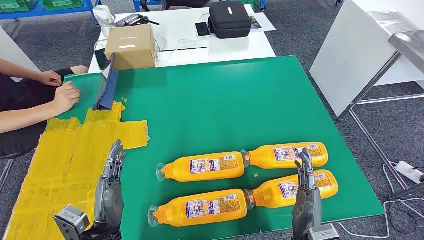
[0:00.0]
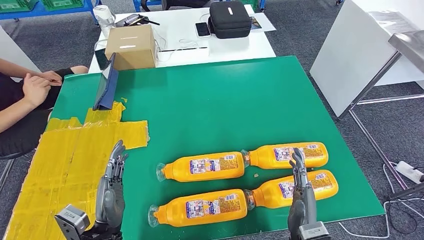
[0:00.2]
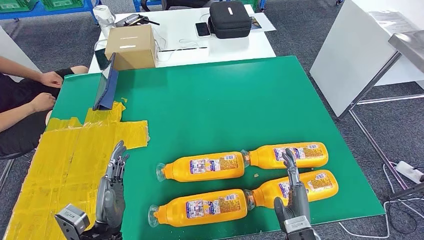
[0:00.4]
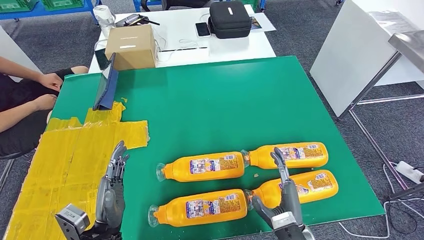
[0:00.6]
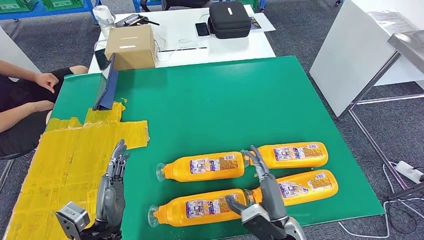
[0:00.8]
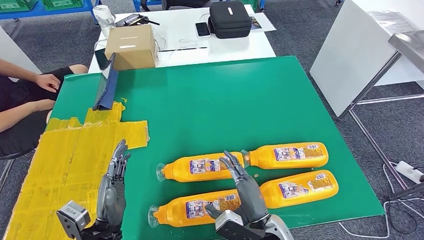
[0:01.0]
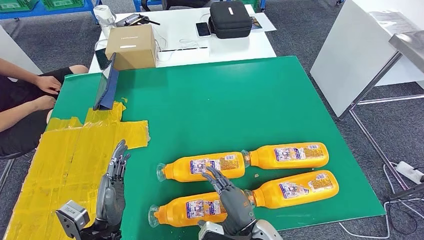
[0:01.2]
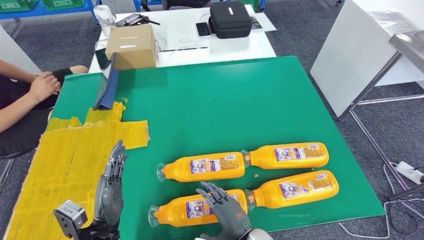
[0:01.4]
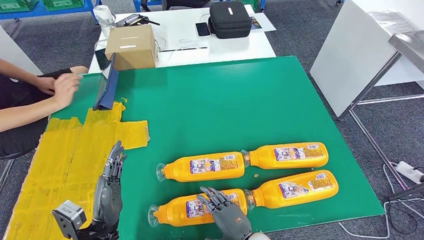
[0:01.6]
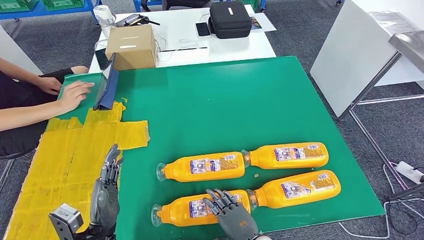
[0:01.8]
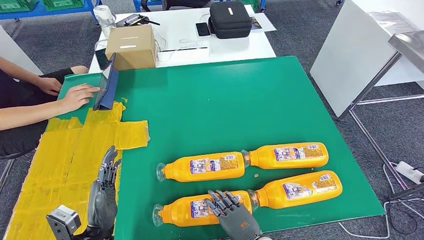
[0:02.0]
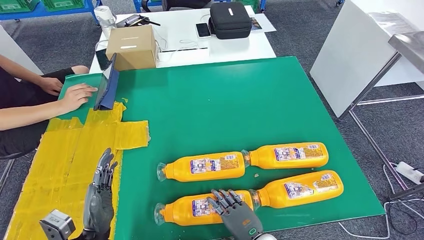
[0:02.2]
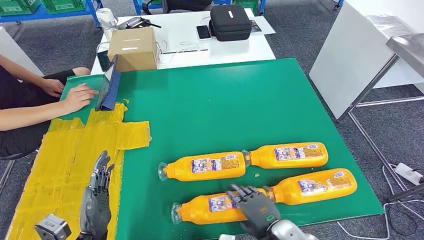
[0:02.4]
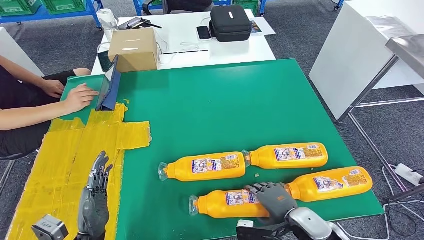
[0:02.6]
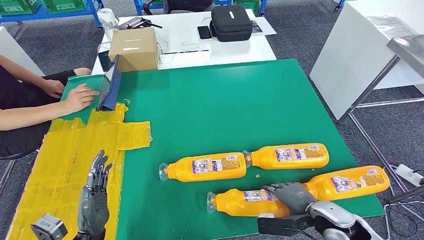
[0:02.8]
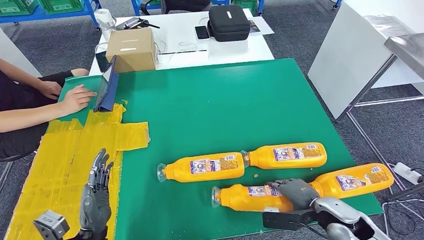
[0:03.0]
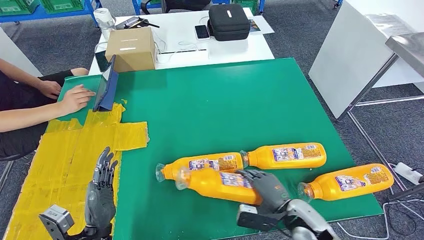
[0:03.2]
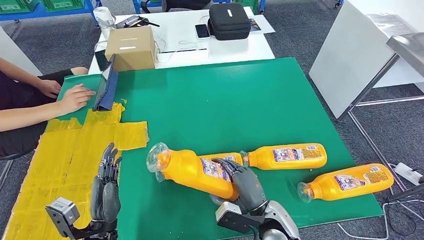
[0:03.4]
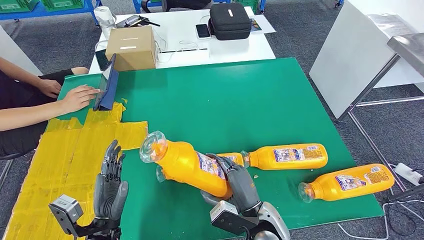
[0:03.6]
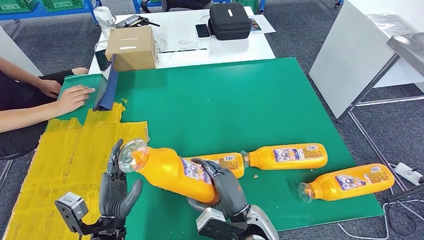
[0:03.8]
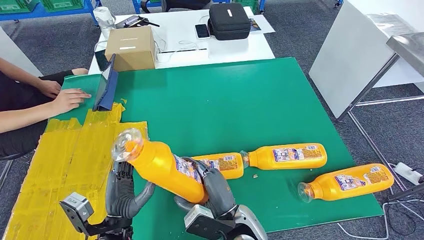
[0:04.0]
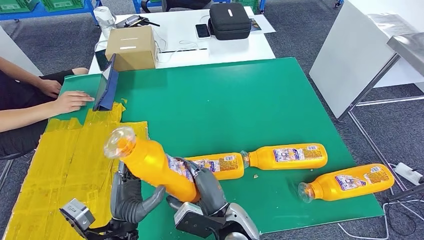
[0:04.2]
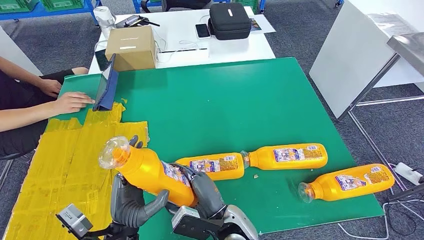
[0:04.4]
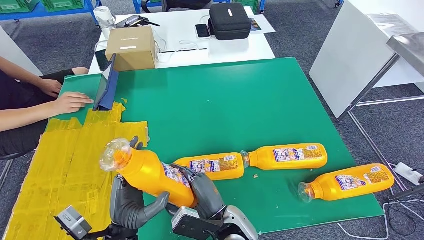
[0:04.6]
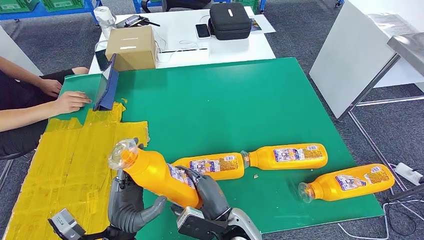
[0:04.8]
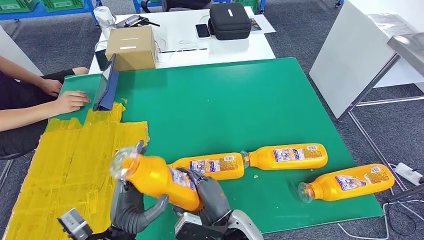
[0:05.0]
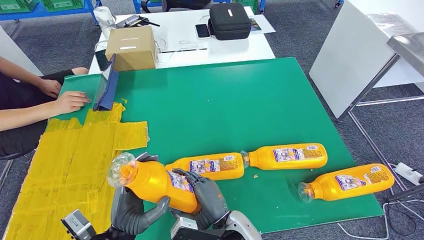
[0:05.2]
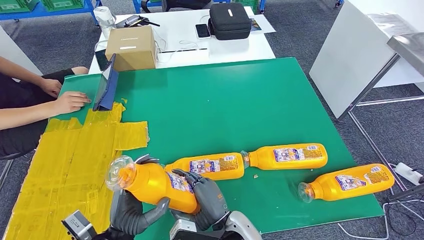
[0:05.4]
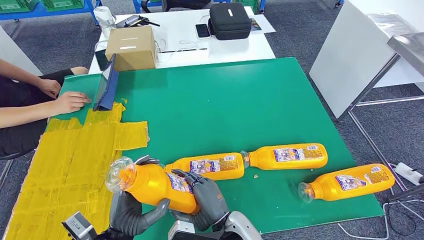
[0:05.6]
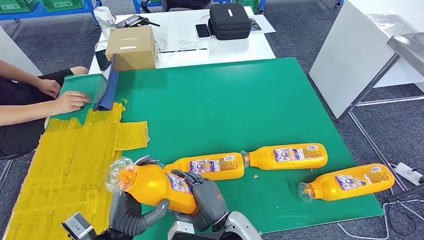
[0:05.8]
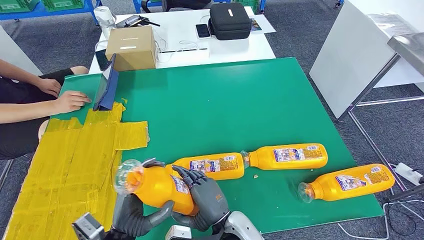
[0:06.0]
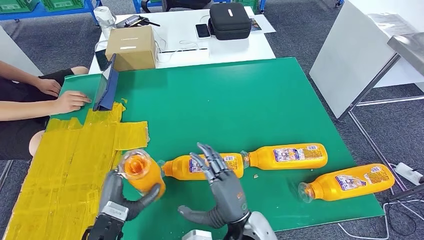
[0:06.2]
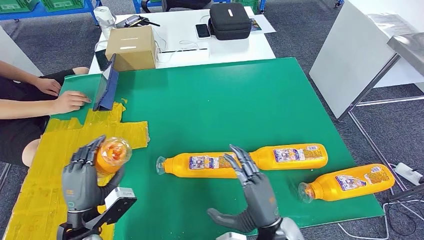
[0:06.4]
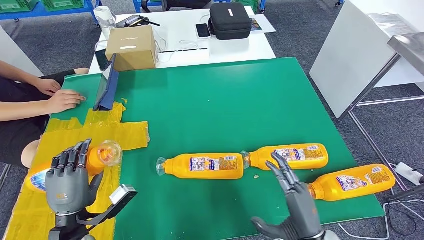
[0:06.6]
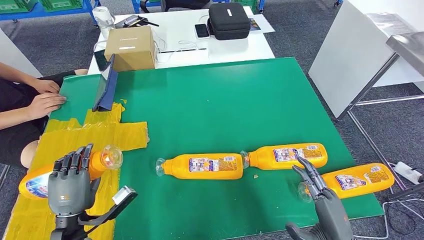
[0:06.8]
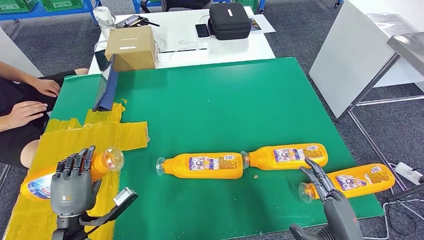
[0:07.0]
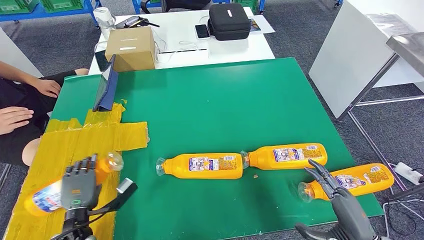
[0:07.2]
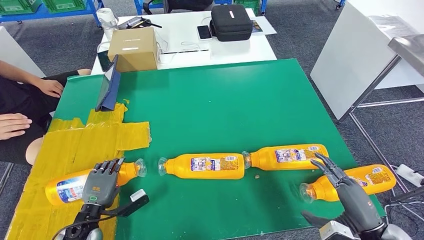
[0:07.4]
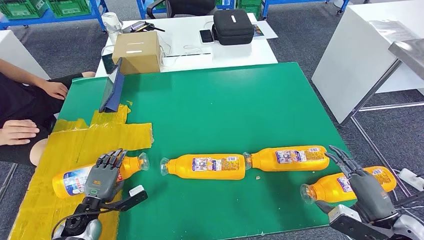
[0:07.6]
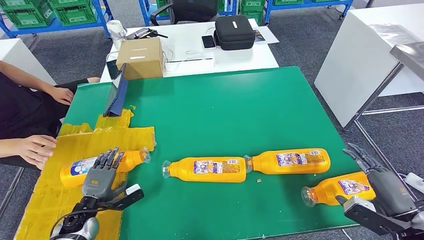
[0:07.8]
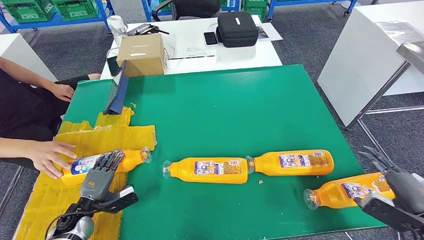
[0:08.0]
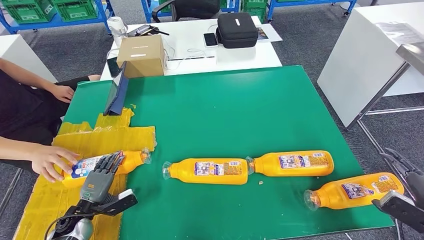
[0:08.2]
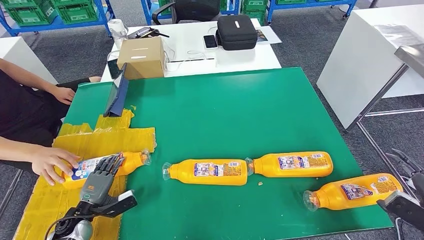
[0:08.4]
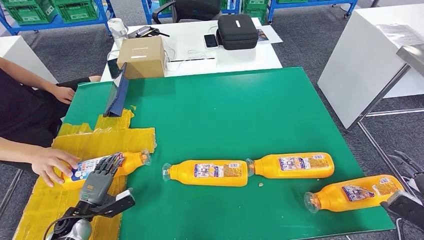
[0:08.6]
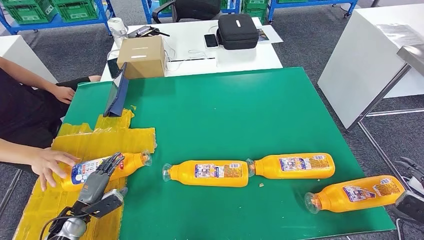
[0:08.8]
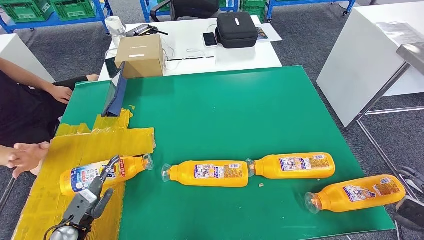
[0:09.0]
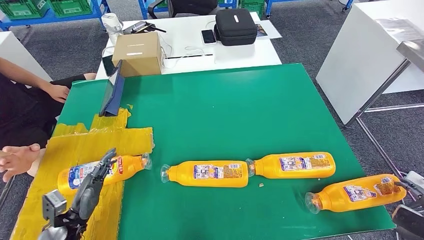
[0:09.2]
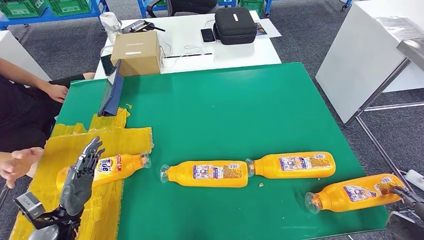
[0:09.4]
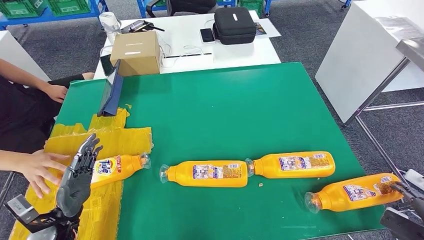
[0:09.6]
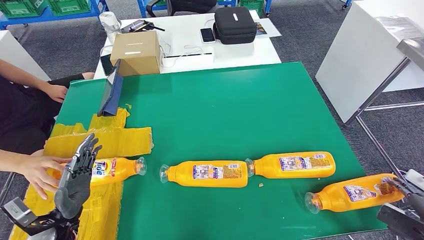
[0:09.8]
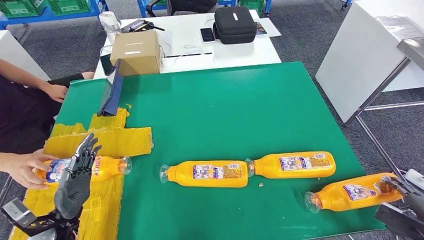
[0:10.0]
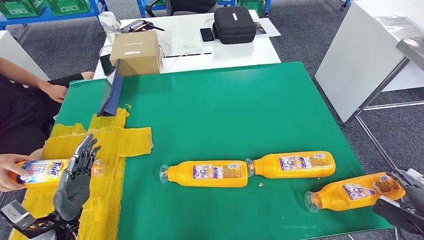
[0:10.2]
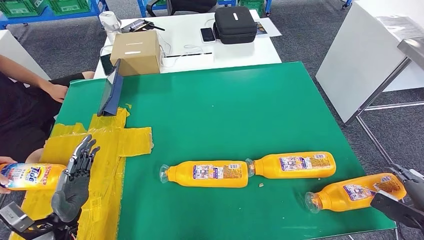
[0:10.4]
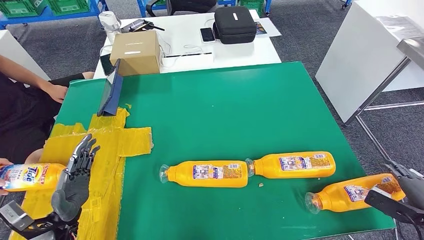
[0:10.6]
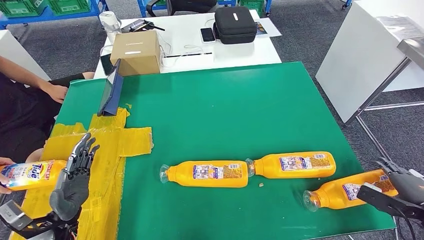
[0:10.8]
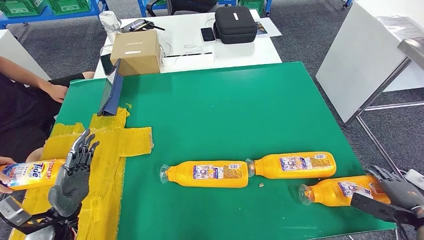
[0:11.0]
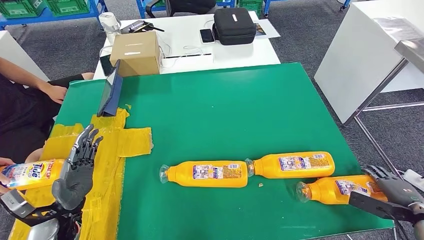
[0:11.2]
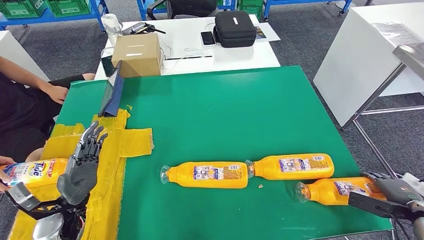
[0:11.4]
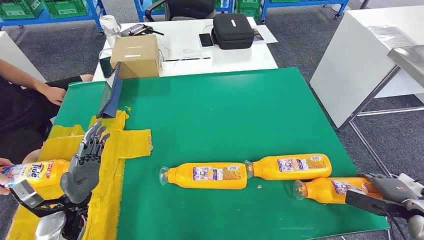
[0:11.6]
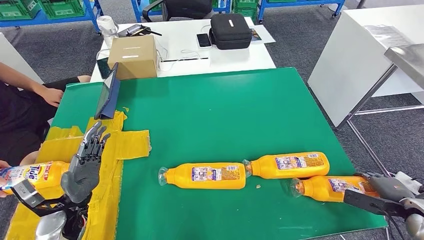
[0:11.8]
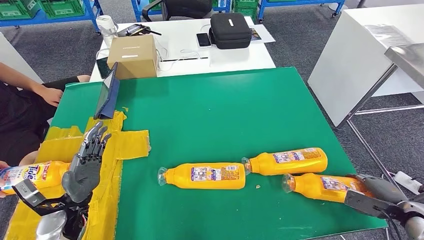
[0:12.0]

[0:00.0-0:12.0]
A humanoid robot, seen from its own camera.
Step, 0:00.0 to 0:05.0: Take the fast-moving consumer goods bottle from the table.
Step, 0:05.6 to 0:09.2: Flip the fast-moving consumer goods bottle to the front side.
0:04.4 to 0:06.0: The hands move only a little.

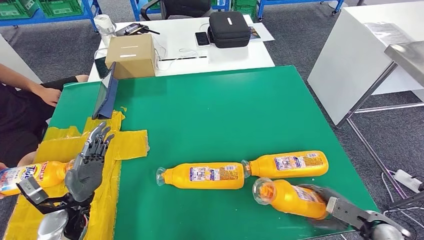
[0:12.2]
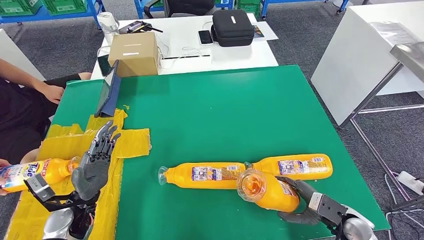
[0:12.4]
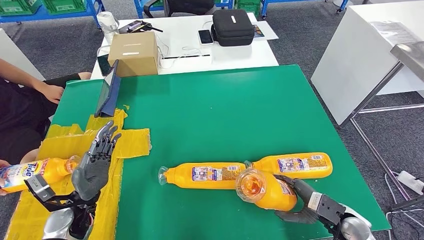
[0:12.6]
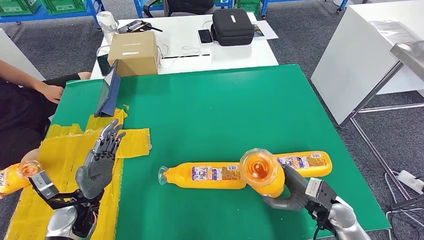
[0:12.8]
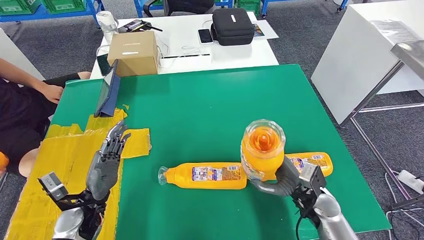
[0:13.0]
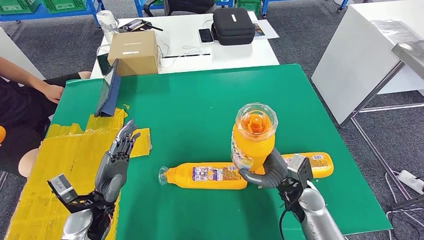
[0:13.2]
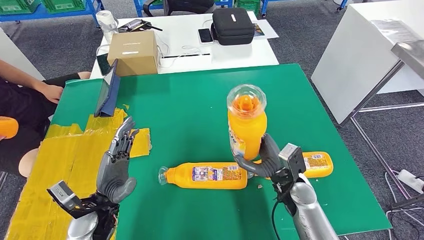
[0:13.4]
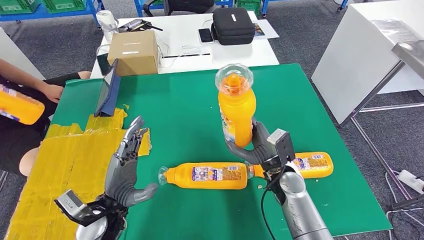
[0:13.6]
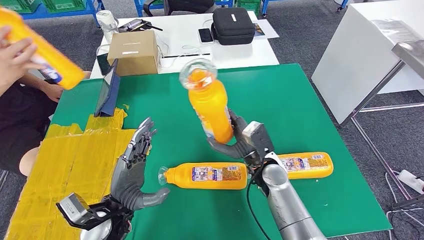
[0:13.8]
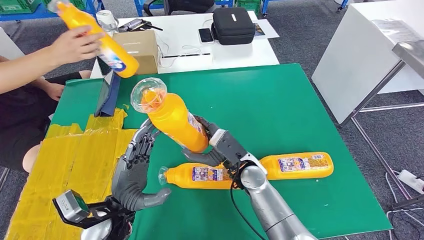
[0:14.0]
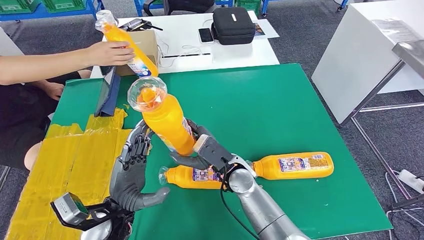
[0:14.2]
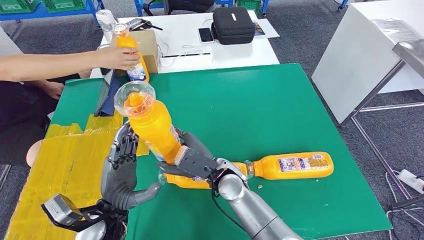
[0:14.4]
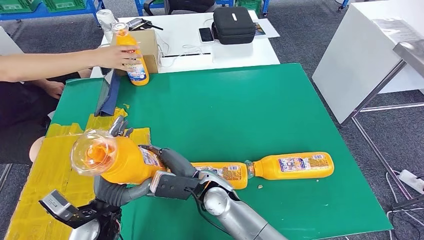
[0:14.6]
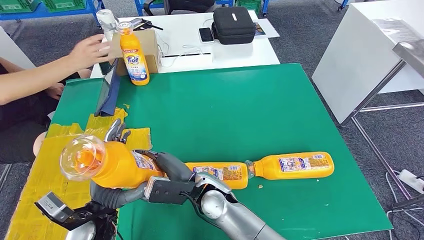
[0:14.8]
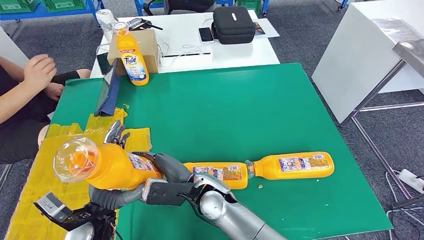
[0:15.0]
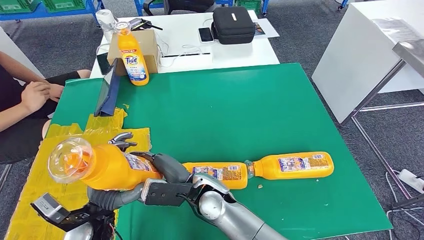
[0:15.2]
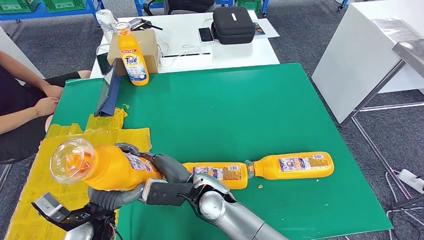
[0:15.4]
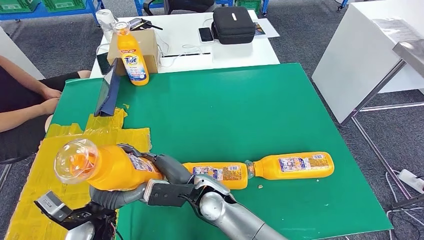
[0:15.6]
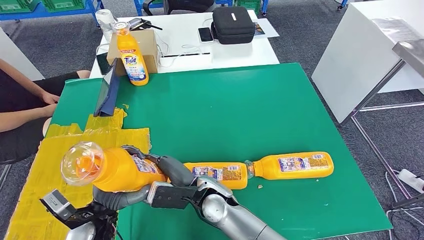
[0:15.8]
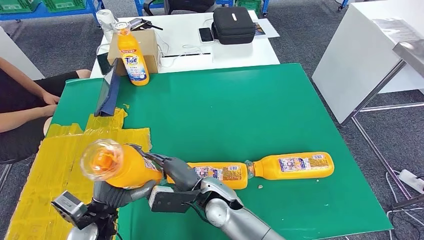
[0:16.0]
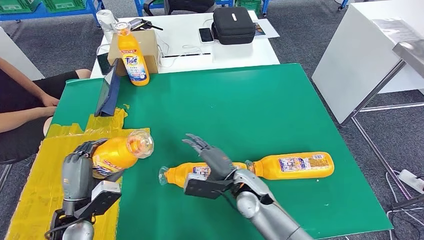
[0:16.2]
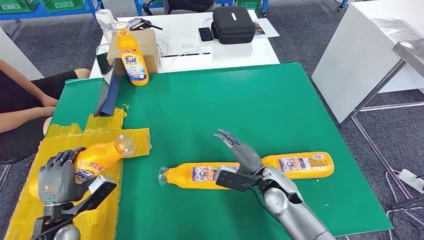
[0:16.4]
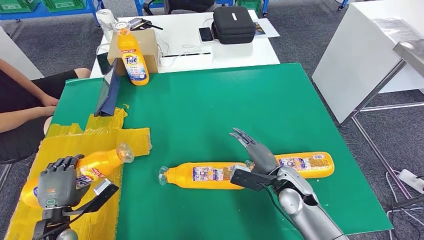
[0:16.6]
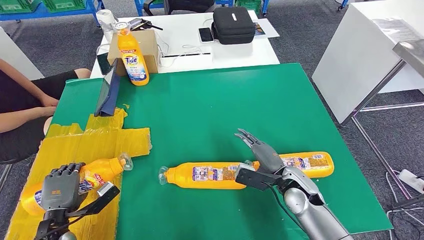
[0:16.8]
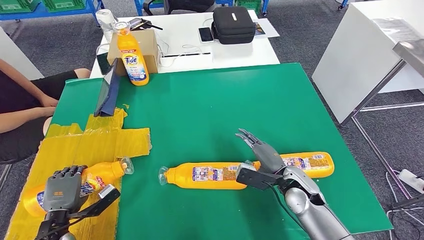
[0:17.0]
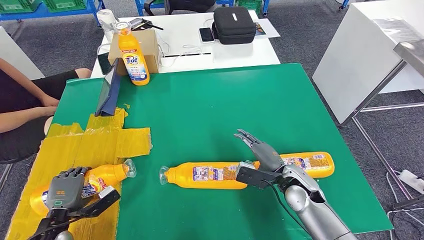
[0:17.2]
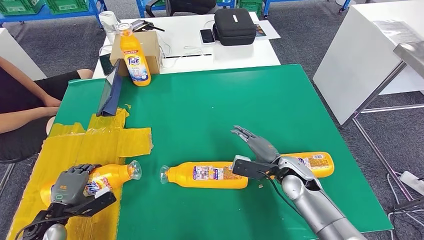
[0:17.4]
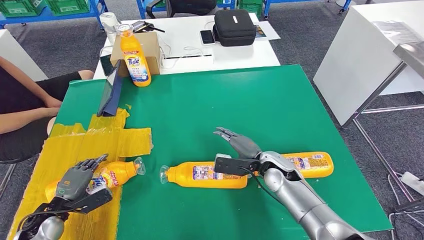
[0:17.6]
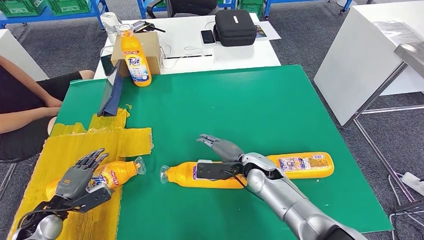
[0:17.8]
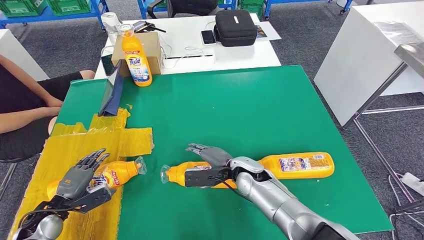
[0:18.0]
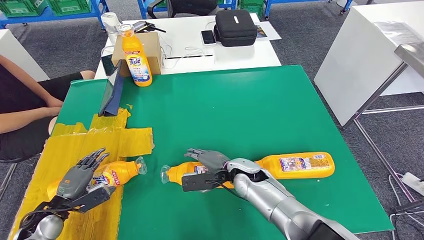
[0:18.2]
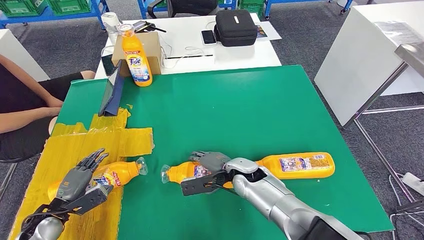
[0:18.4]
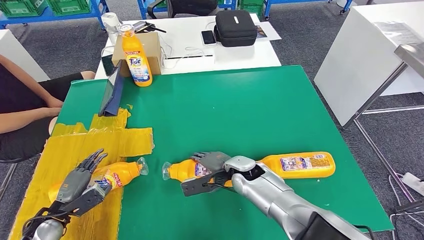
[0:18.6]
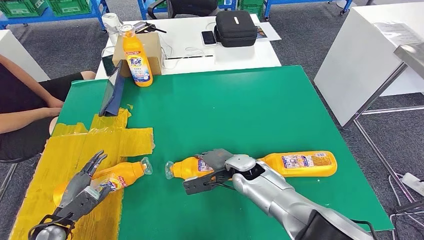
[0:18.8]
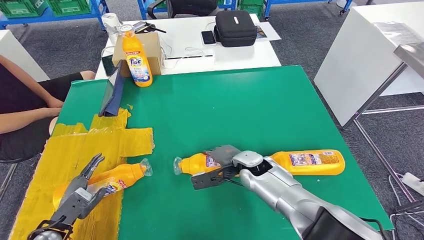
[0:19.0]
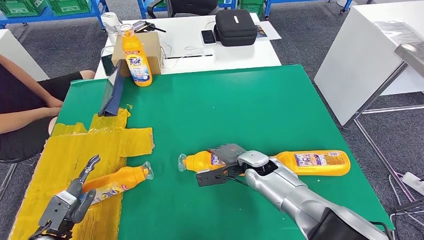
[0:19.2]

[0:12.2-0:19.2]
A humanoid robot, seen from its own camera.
Step, 0:12.2 to 0:14.8: Pick up the fast-moving consumer goods bottle from the table.
0:17.8 to 0:19.2: The left hand ends up approximately 5 cm from where it was.
